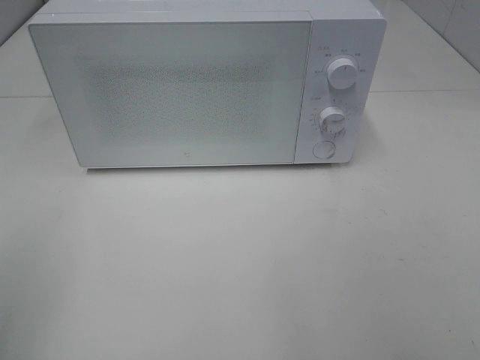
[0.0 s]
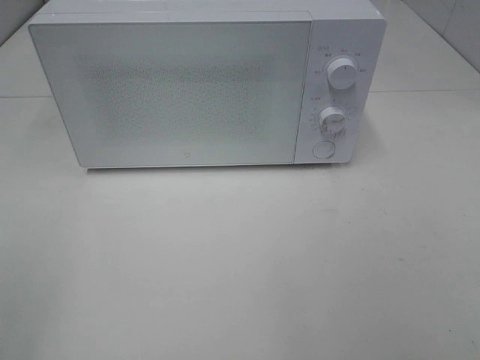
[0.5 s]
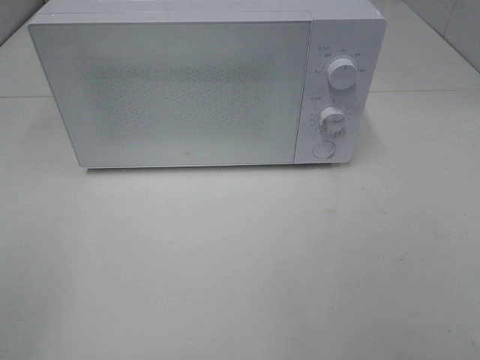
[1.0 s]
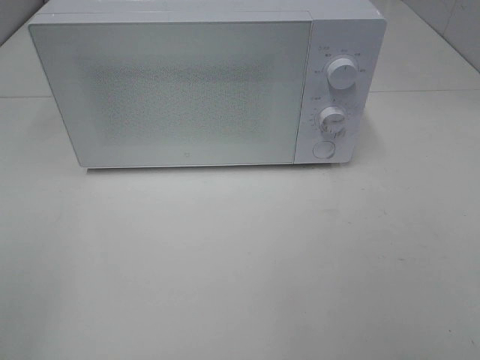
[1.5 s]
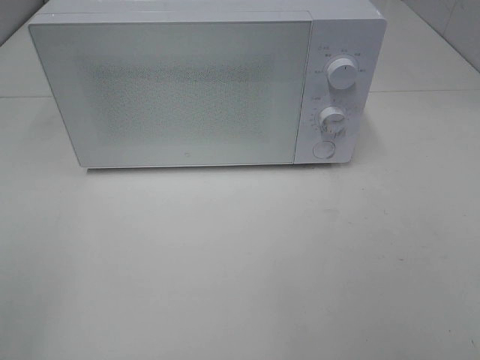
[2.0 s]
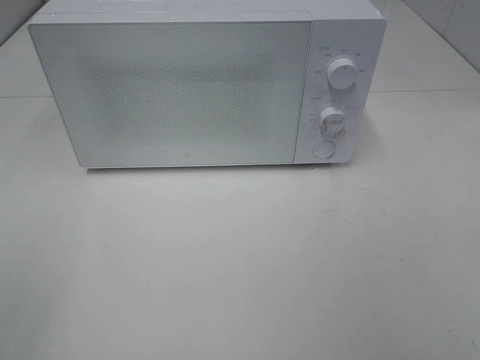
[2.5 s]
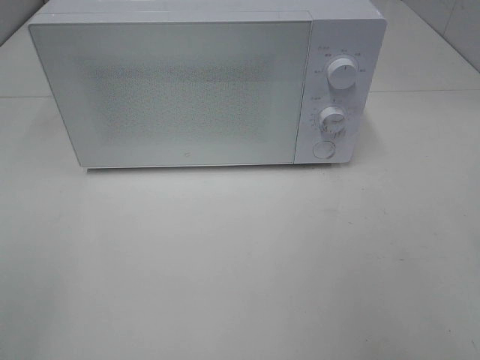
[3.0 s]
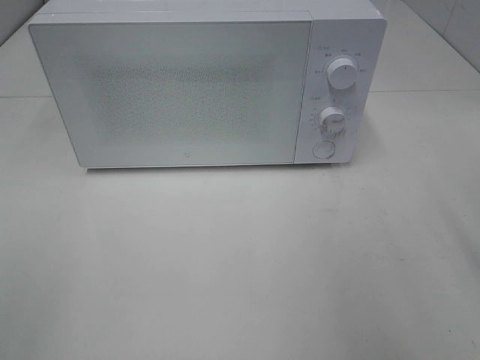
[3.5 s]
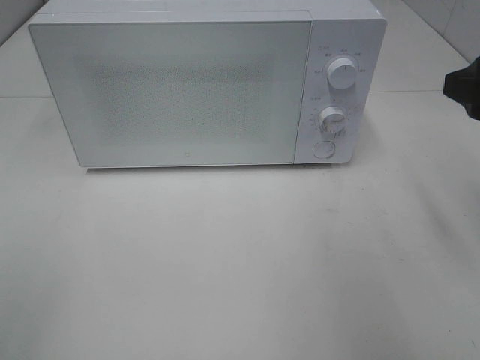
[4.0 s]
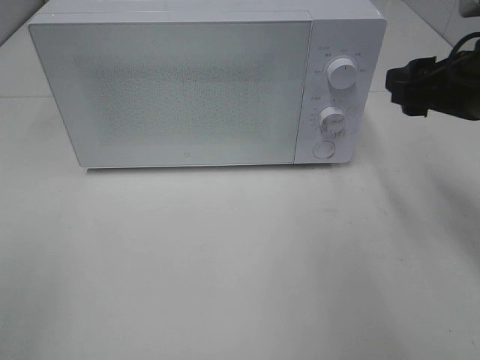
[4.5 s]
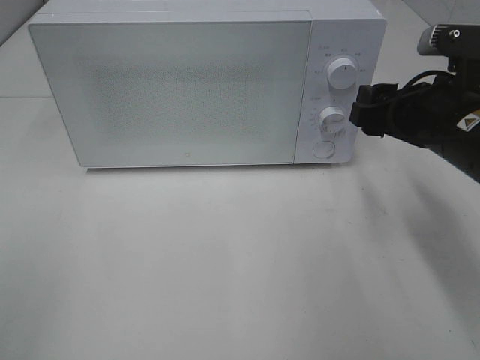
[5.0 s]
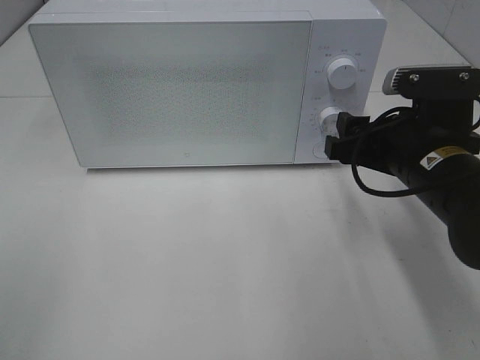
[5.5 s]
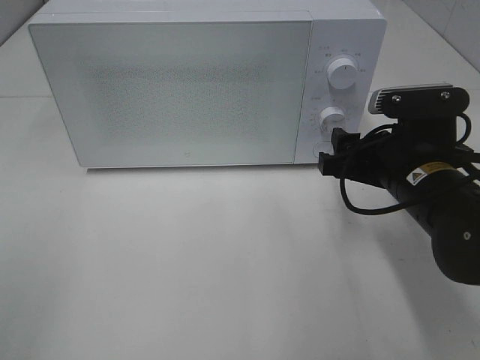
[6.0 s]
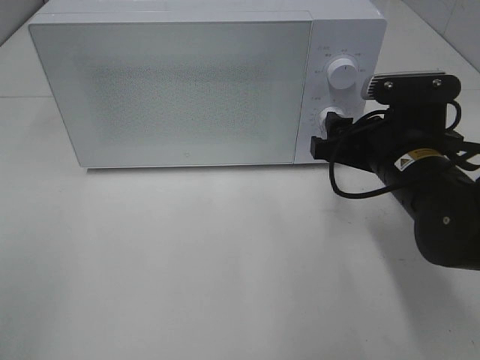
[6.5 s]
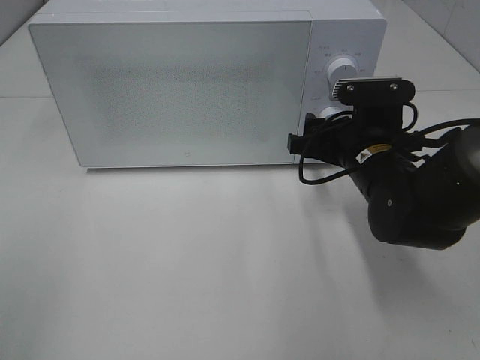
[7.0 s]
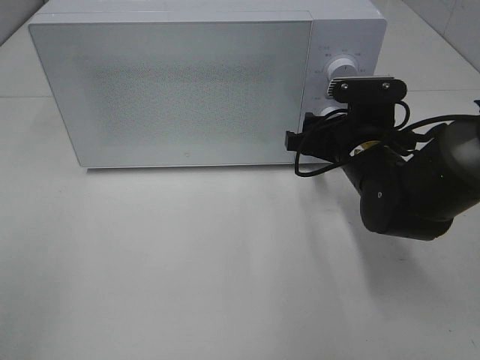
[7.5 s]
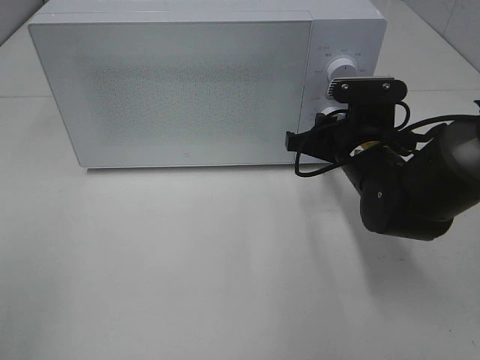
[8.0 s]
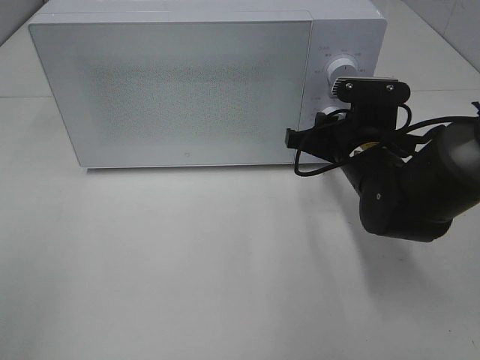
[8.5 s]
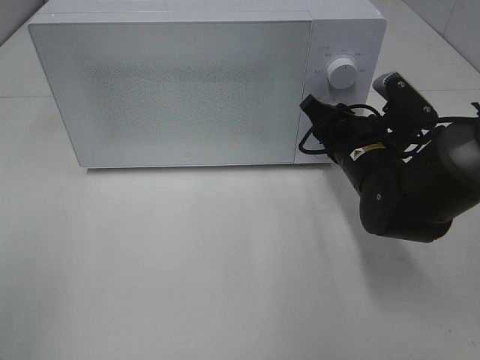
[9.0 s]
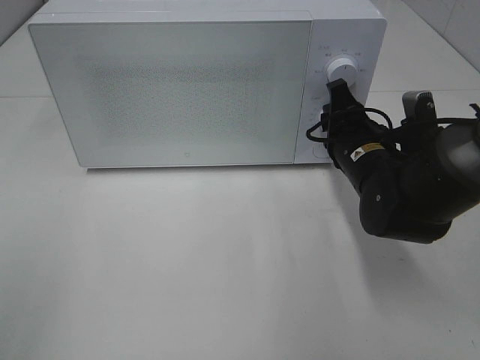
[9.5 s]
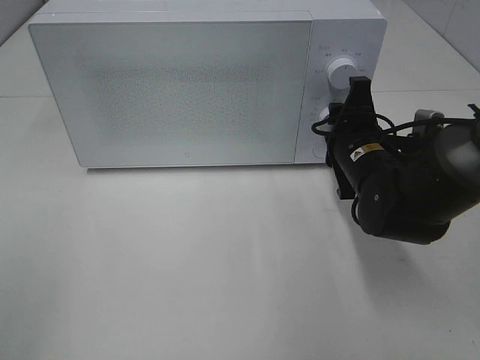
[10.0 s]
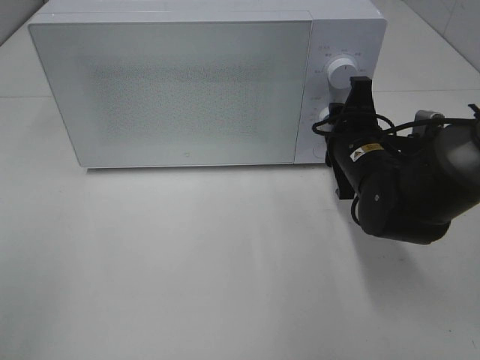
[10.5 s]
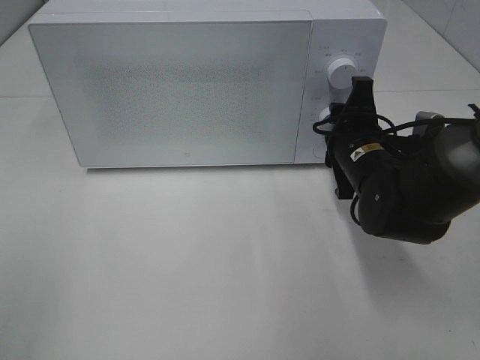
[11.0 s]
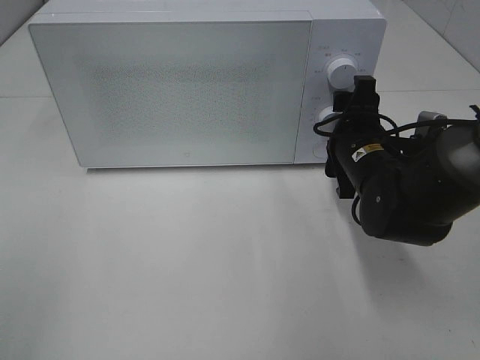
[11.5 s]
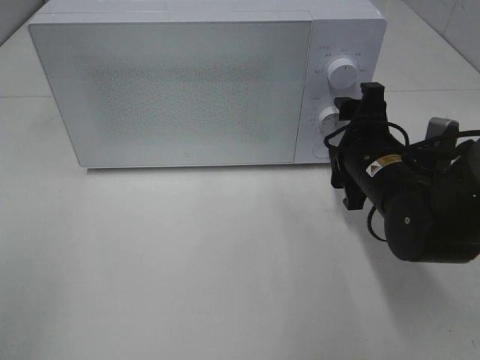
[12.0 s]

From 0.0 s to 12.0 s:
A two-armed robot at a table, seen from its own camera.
Task of the whole recording: Heat Sandwich.
Step, from 0.0 s to 11.0 s: Right hand: twist timer button.
From 2.0 s to 4.0 s: The right gripper heads forward, covering some 20 cm.
From 4.0 s to 6.0 s: The right gripper heads downward and to the left, covering about 15 cm.
From 6.0 s to 8.0 s: The right gripper travels forward by some 5 cm, and closes up.
From 10.0 s to 12.0 s: The right gripper opens up.

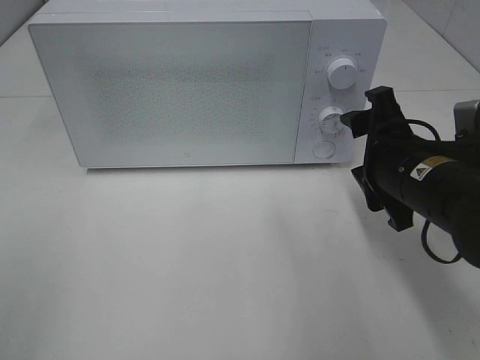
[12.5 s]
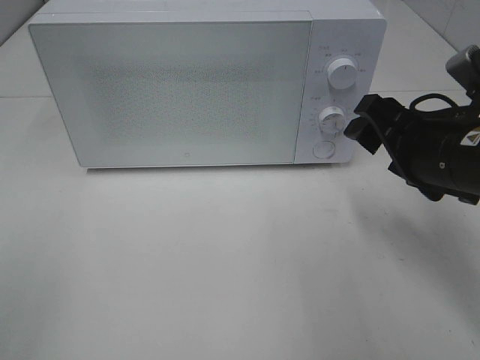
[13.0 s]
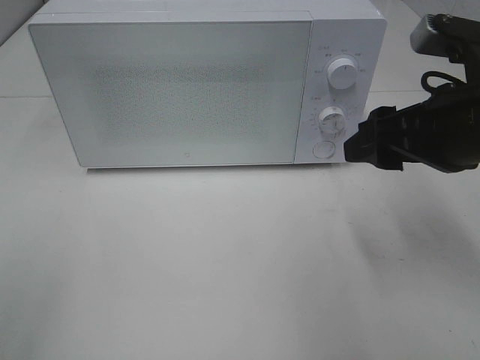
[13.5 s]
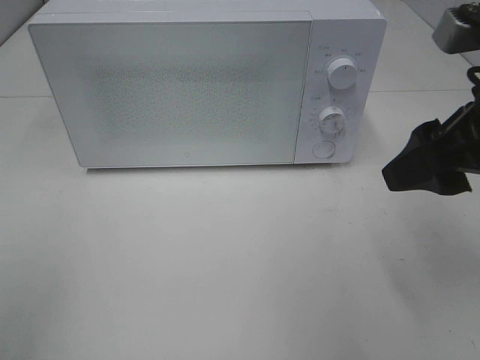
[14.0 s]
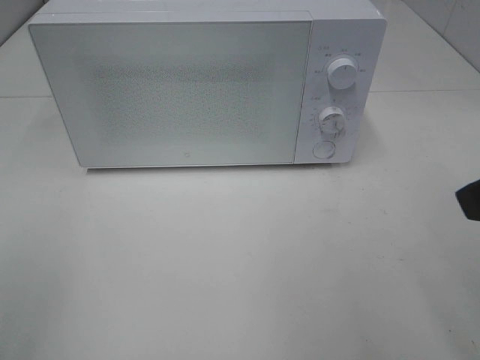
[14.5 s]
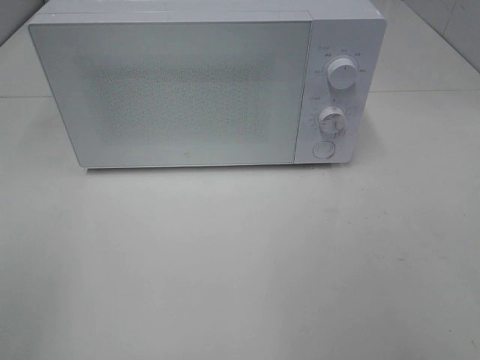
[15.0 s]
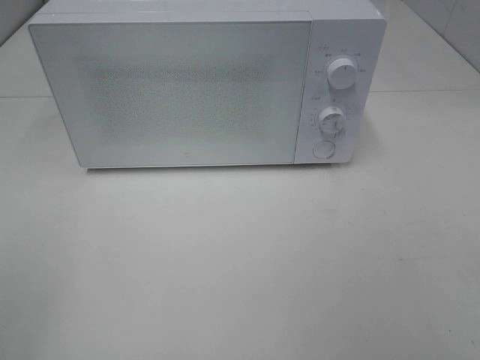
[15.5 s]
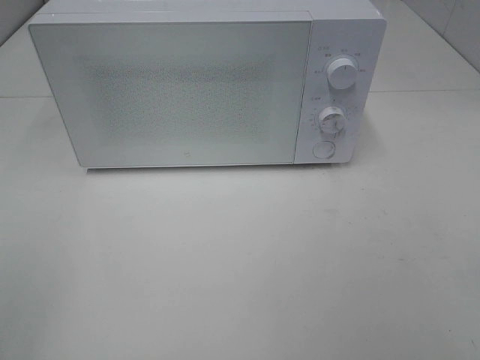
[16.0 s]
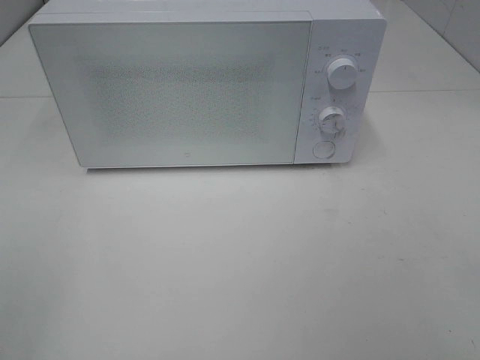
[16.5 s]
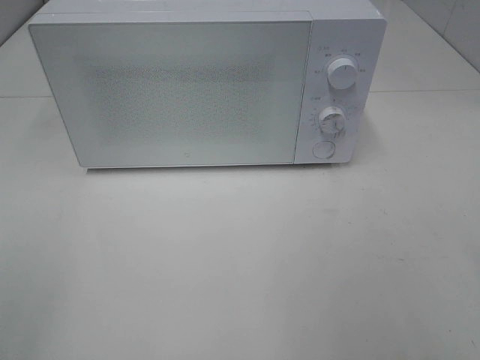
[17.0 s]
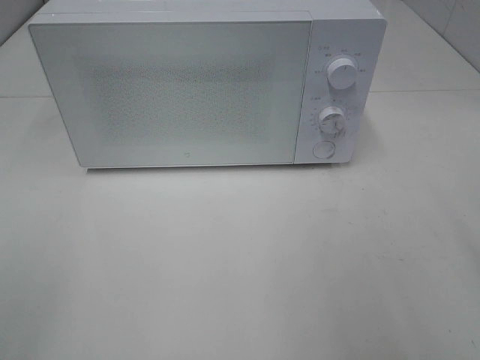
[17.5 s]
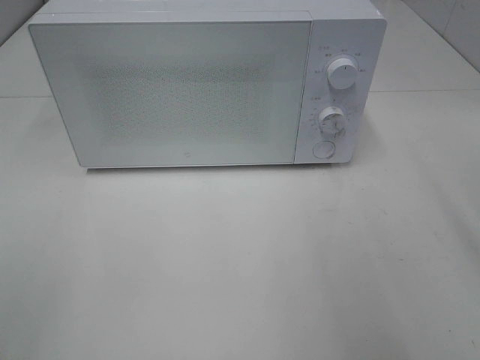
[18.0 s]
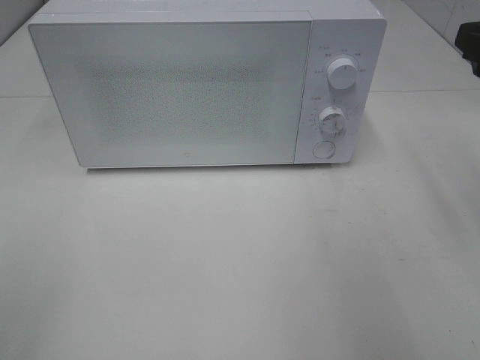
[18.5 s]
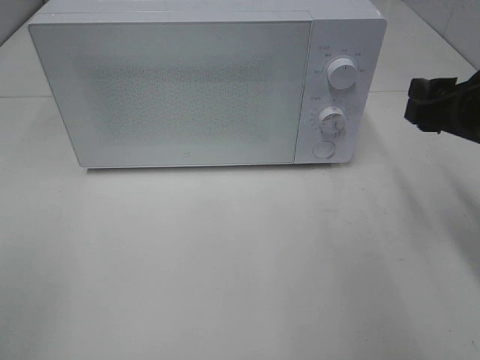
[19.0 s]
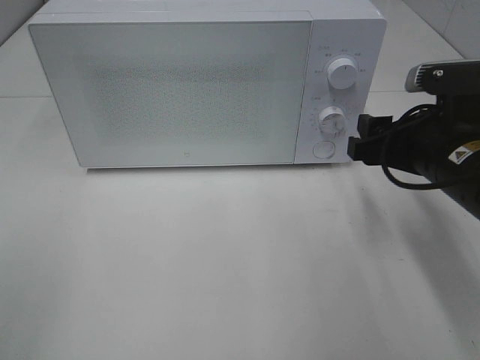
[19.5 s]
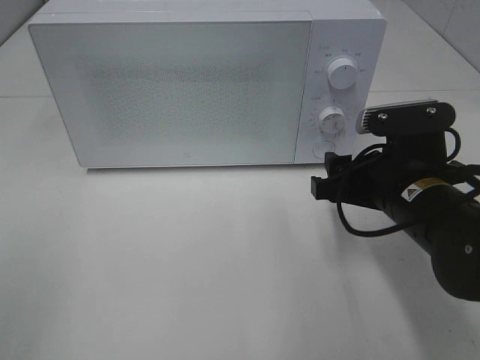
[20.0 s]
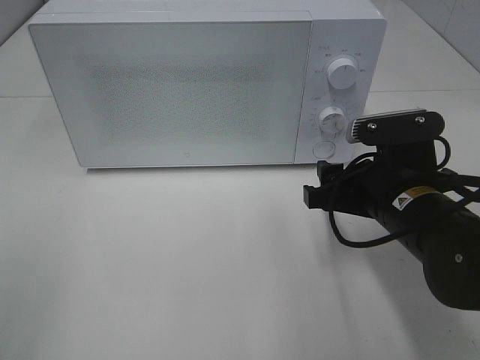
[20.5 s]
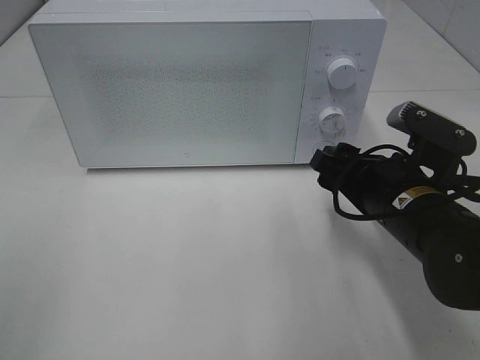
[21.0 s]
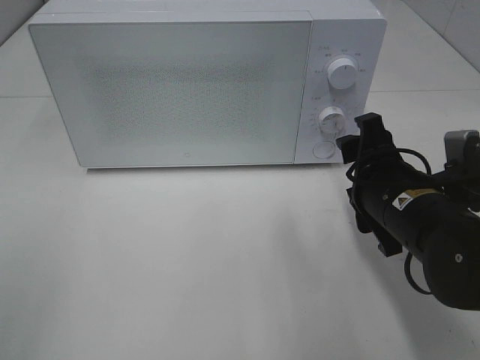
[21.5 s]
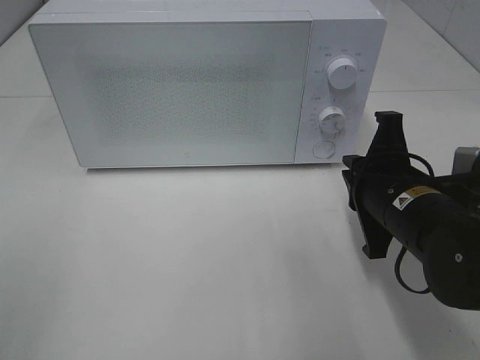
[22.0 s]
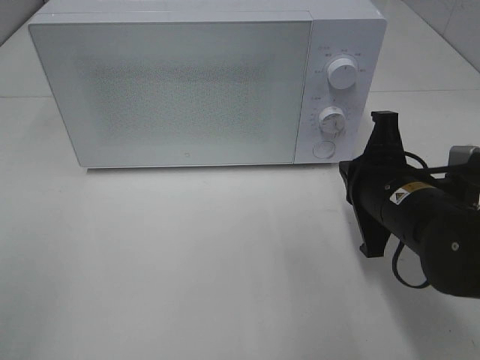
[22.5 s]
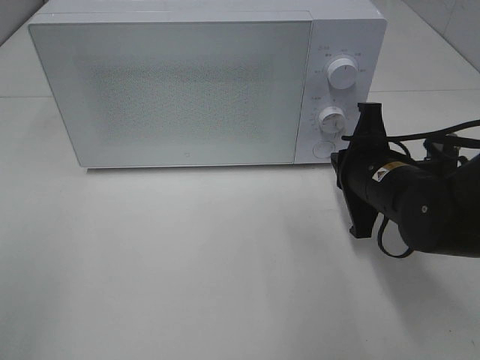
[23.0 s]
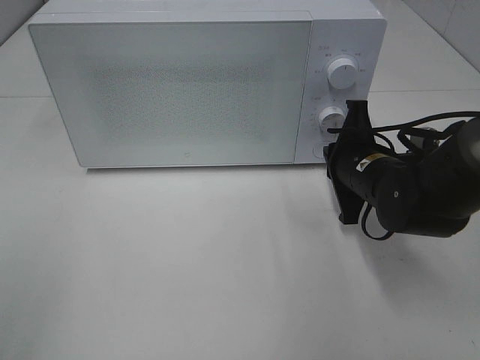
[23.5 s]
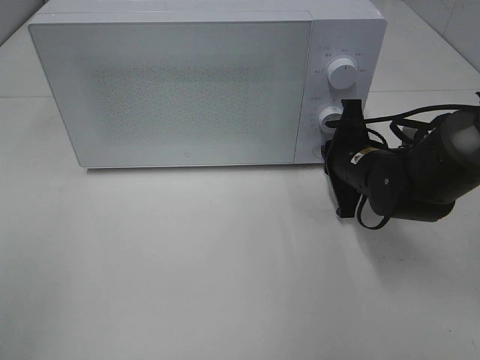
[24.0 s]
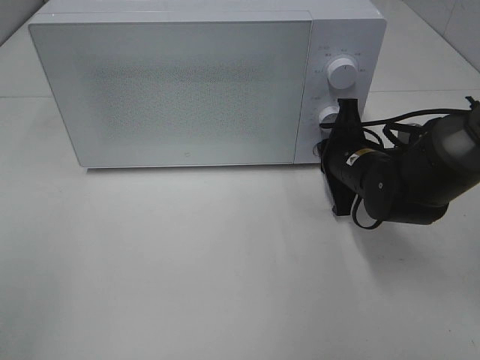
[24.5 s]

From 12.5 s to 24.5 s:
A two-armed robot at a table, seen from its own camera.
Task of the whole recording: Heat Sandwich.
From 12.5 s to 14.5 s: The right gripper travels upward and backward by approximately 20 cm.
From 16.5 s to 18.5 s: The right gripper shifts about 25 cm forward.
From 18.5 s to 20.5 s: The right gripper moves downward and to the left, approximately 20 cm.
From 20.5 s to 22.5 s: The right gripper closes up.
From 22.5 s to 24.5 s: The right gripper heads forward, covering roughly 10 cm.

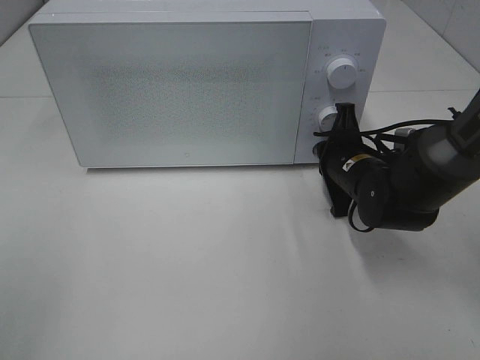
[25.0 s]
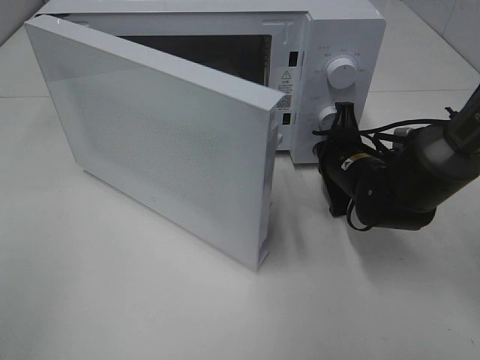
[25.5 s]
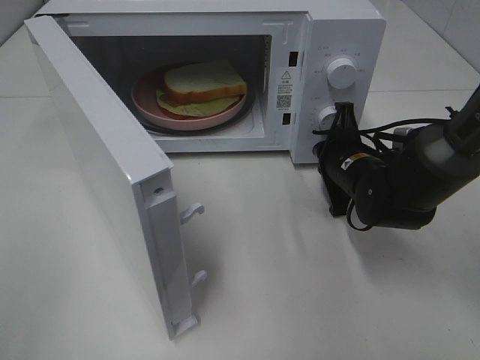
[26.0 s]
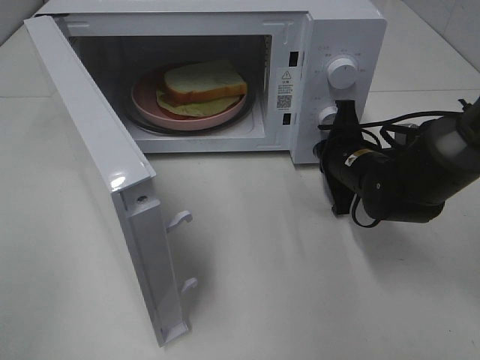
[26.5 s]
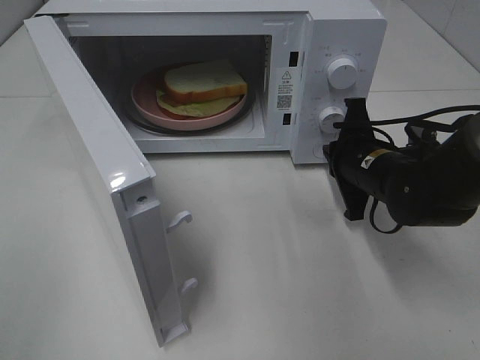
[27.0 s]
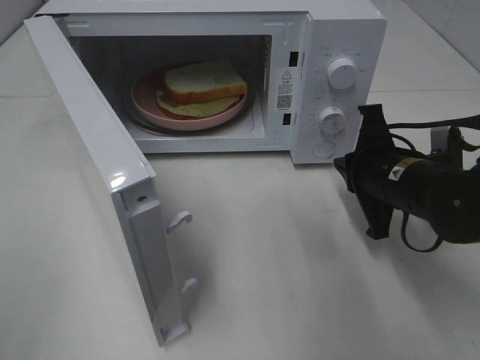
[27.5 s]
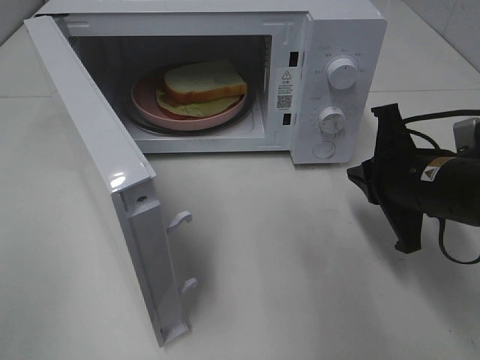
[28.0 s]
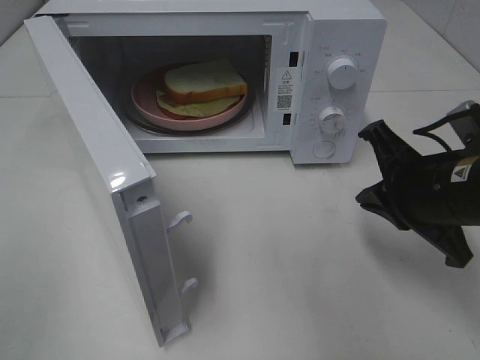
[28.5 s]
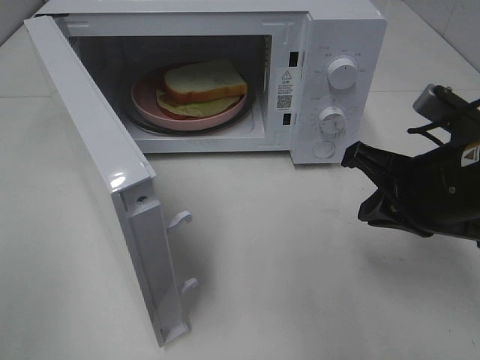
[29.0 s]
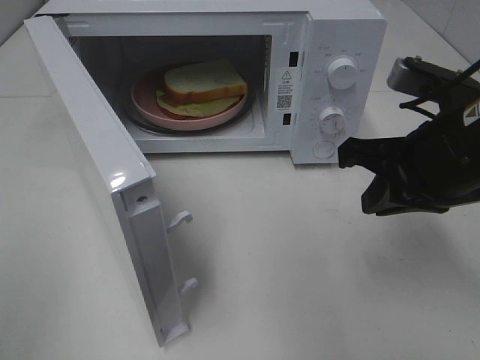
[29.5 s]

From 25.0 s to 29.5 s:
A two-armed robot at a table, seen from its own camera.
Task of the whole recording: Heat Sandwich.
Step, from 25.0 s to 27.0 s: Right hand: press the switch.
From 27.0 s to 29.5 s: The right gripper is displaced upward and backward by some 15 cm.
